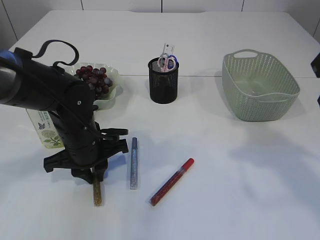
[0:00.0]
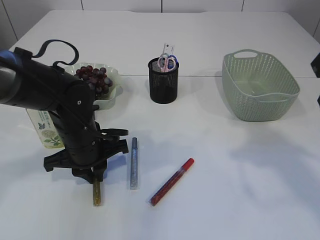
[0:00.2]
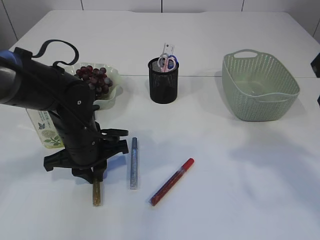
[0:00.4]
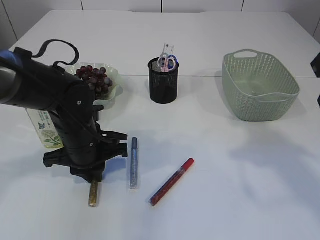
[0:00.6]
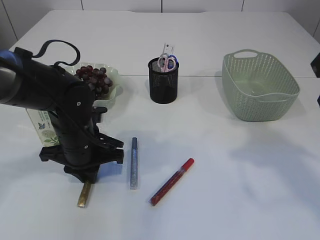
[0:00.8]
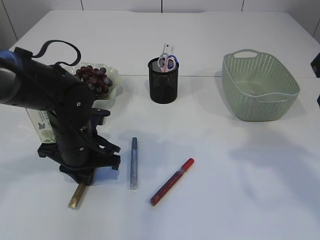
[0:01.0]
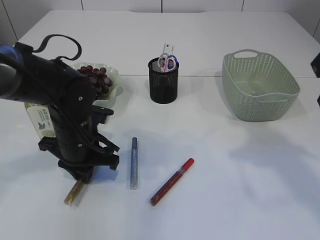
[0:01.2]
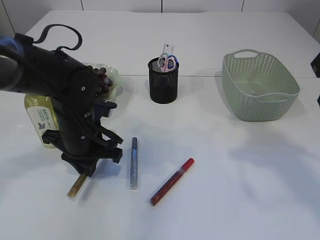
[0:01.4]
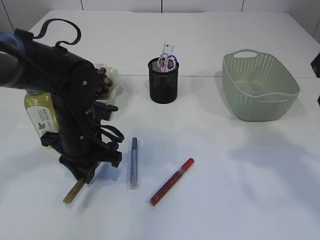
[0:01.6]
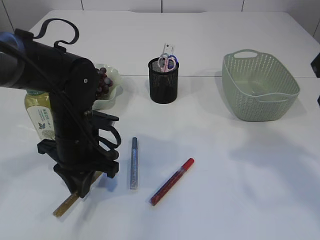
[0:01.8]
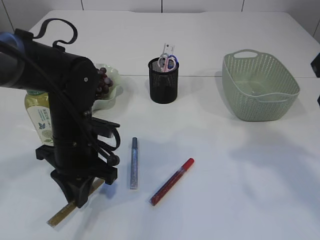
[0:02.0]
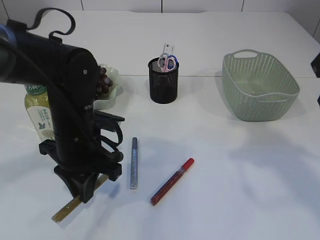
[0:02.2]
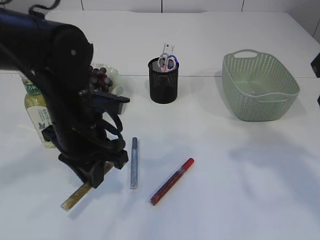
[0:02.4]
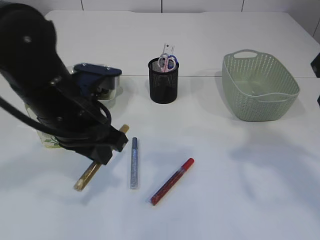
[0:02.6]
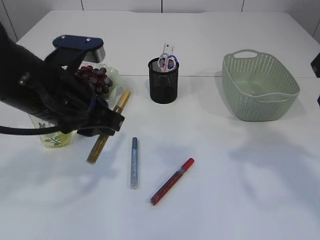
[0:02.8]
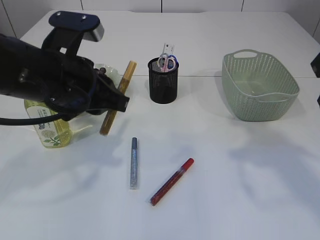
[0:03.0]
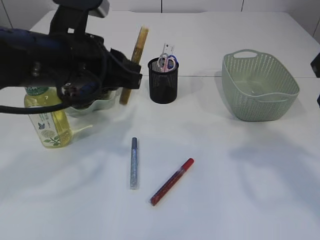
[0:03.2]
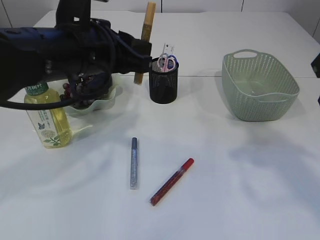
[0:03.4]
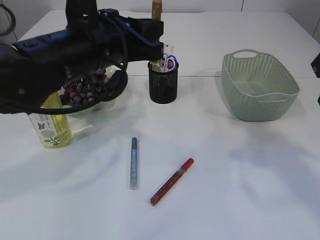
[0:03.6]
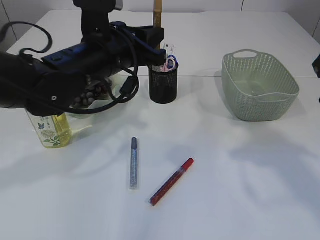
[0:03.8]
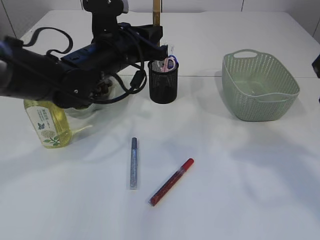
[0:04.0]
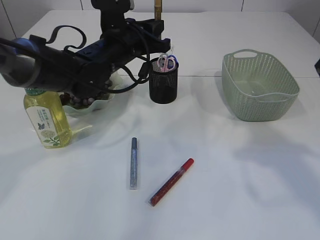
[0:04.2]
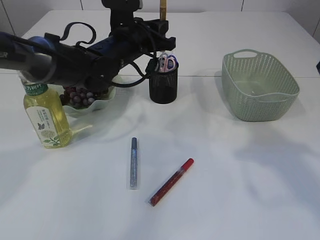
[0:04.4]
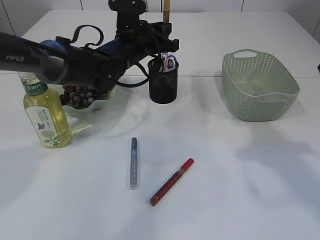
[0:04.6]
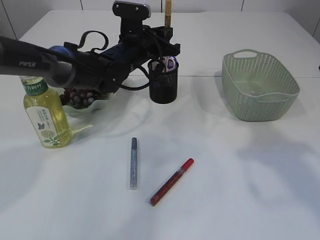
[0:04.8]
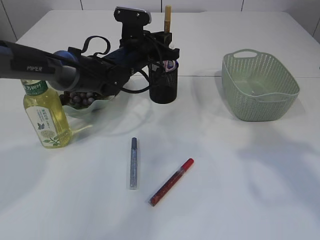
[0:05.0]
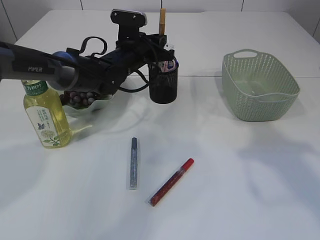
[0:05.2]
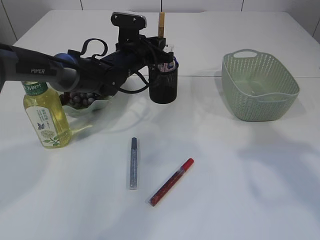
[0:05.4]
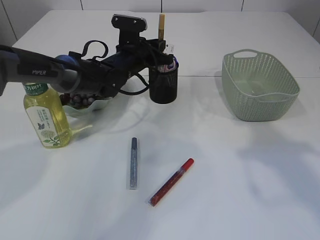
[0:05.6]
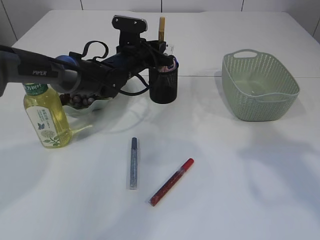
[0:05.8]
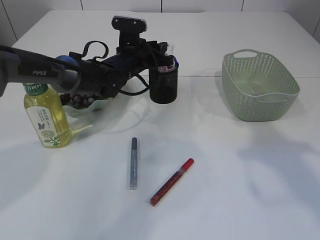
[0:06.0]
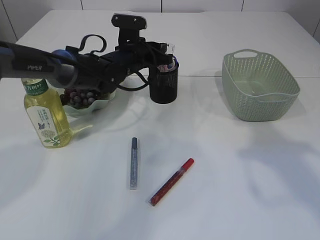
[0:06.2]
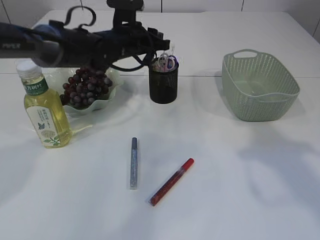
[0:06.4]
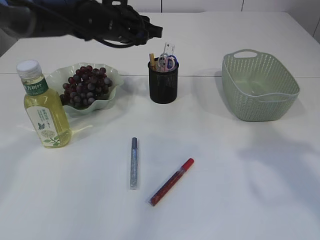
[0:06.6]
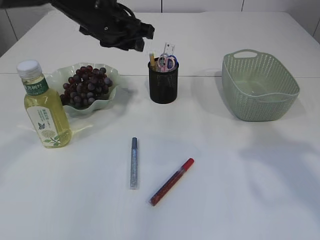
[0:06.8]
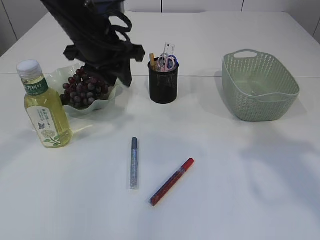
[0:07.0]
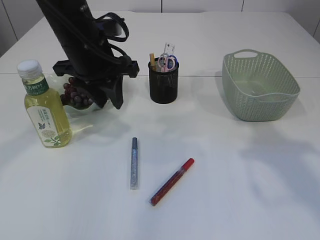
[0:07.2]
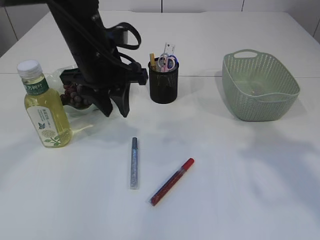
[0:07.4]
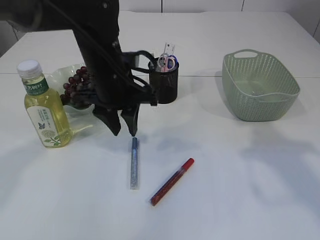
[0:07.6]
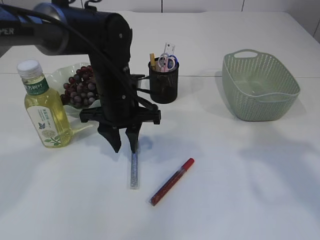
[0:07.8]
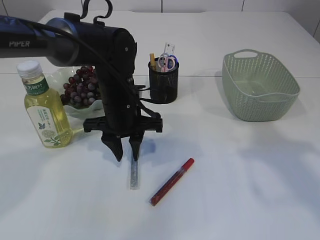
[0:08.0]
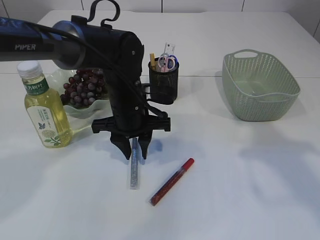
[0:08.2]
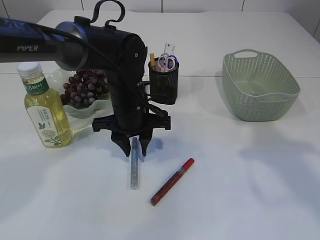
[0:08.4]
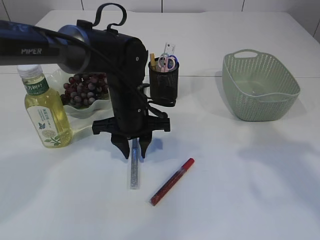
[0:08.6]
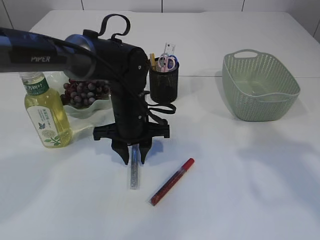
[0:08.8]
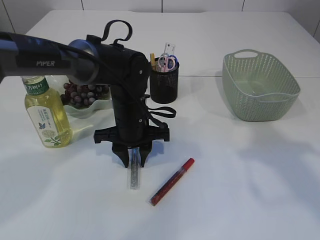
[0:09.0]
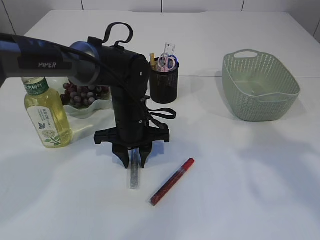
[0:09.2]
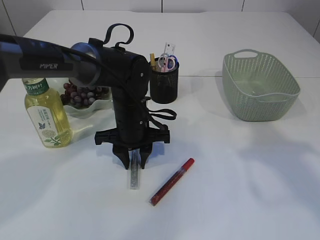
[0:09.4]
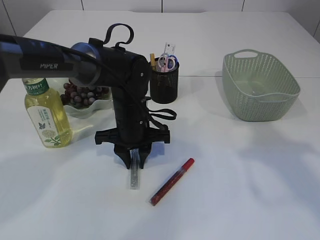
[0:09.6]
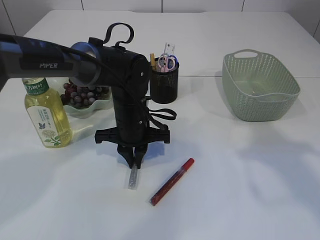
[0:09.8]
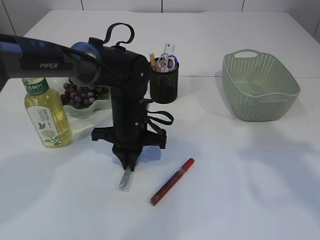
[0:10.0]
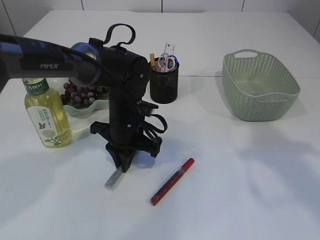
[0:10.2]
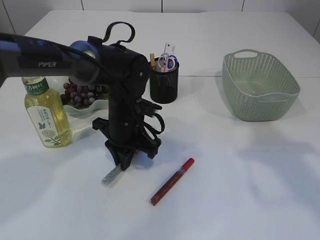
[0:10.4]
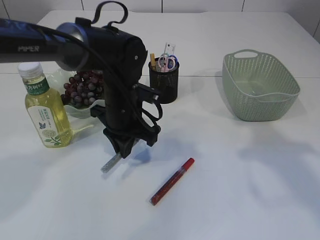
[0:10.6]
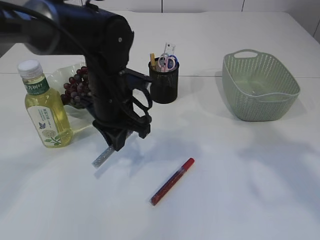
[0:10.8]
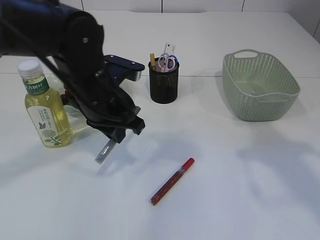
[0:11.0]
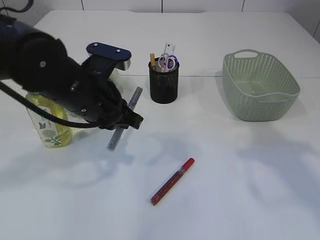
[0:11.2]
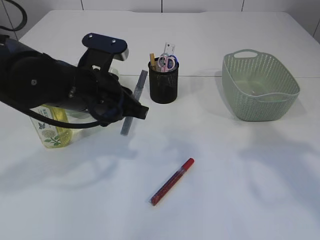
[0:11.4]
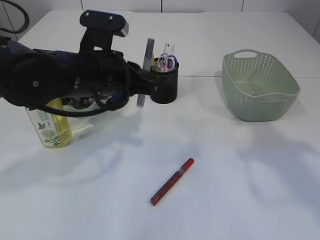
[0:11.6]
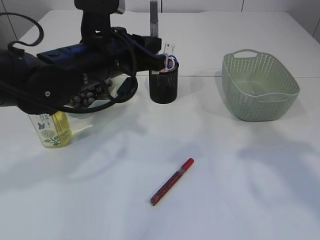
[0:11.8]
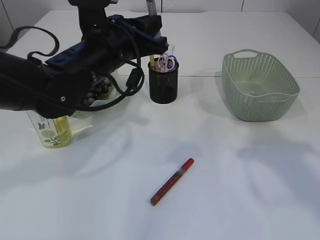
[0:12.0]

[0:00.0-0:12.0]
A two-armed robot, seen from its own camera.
Step, 0:00.0 to 0:02.6: pick up the yellow glue.
Step, 0:02.8 to 0:06.8: place the yellow glue into the pen holder.
Step, 0:07.0 to 0:11.0: pick up the silver glue.
0:01.6 to 0:03.0: The left gripper moves upward and backward, about 15 cm.
0:03.0 to 0:04.4: The left gripper travels forward by roughly 20 cm.
0:04.4 to 0:06.0: The left gripper moves downward, roughly 5 cm.
0:06.0 to 0:07.6: The left gripper travels backward and upward by roughly 15 cm.
0:07.6 to 0:09.0: The left gripper shifts some 10 cm downward.
0:09.0 to 0:10.4: The left gripper closes up.
0:10.4 to 0:12.0: The left gripper heads upward, covering approximately 15 cm.

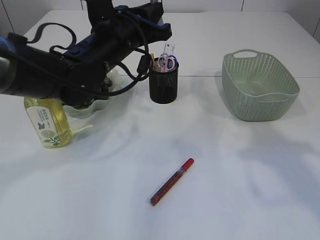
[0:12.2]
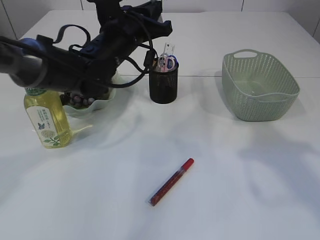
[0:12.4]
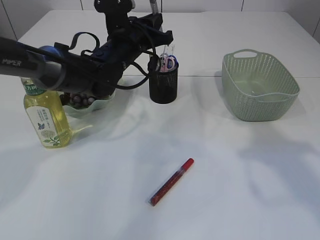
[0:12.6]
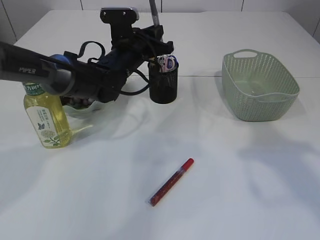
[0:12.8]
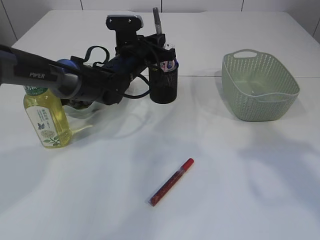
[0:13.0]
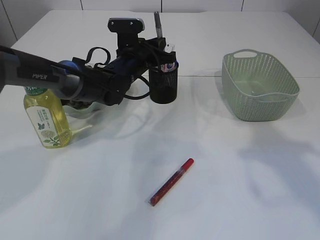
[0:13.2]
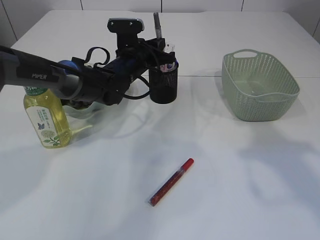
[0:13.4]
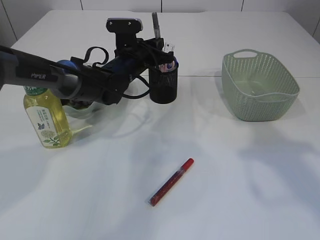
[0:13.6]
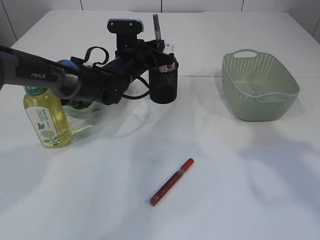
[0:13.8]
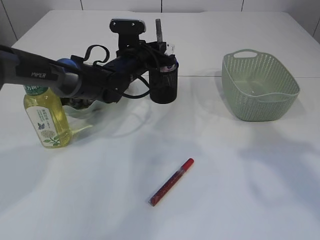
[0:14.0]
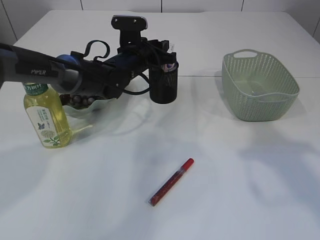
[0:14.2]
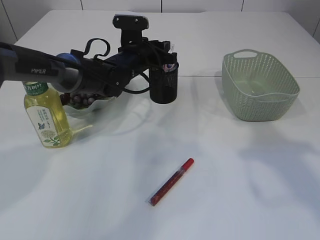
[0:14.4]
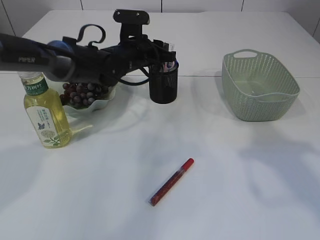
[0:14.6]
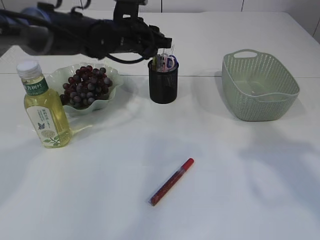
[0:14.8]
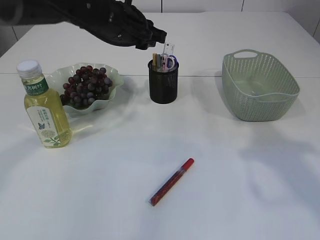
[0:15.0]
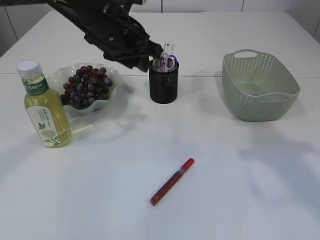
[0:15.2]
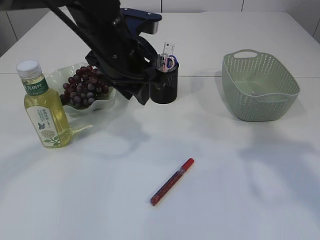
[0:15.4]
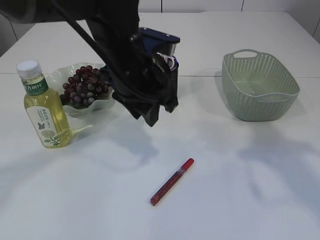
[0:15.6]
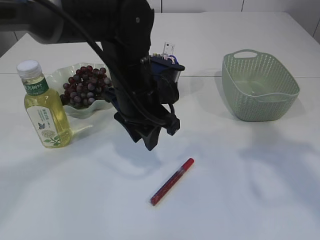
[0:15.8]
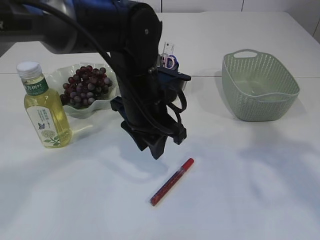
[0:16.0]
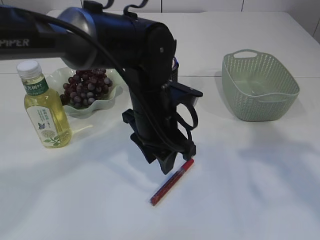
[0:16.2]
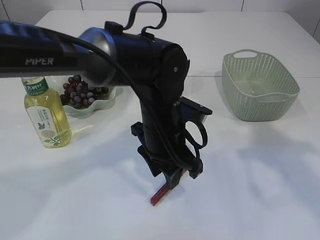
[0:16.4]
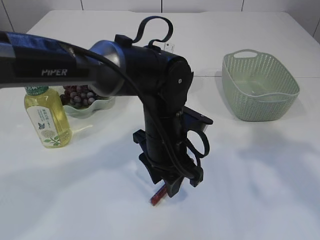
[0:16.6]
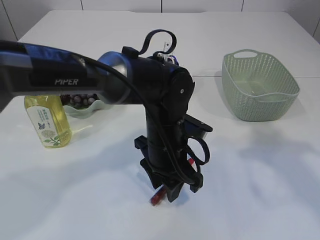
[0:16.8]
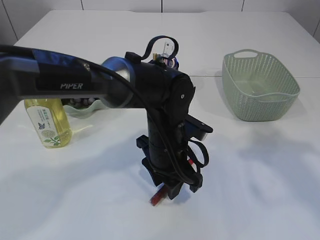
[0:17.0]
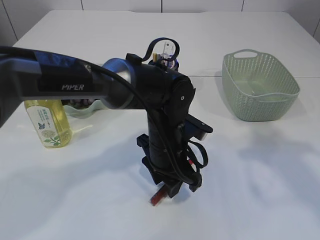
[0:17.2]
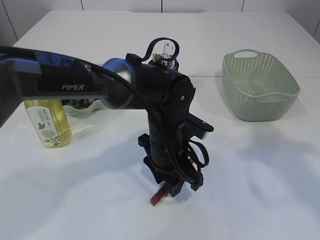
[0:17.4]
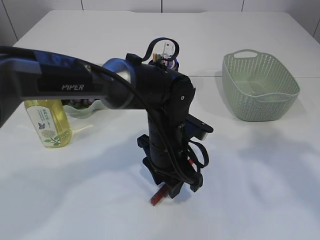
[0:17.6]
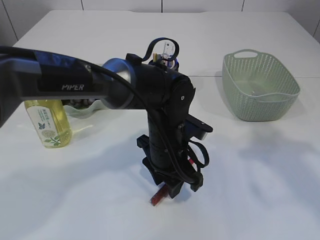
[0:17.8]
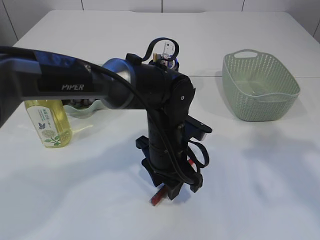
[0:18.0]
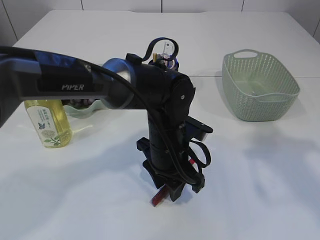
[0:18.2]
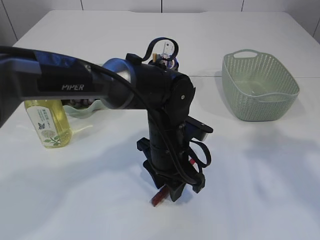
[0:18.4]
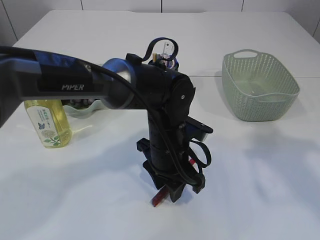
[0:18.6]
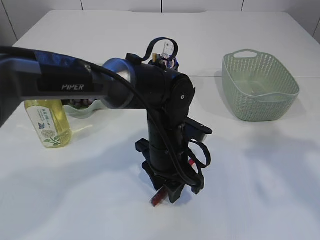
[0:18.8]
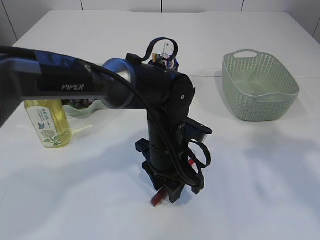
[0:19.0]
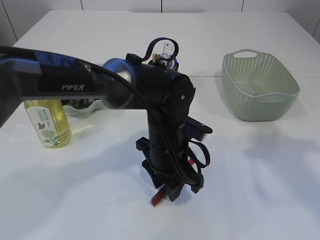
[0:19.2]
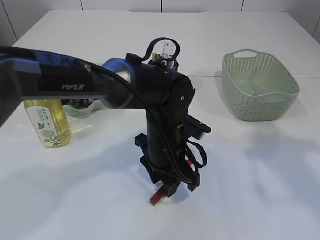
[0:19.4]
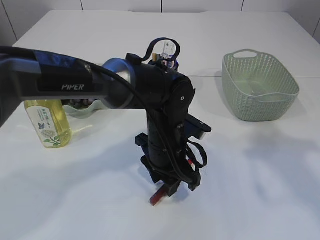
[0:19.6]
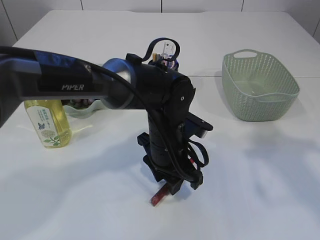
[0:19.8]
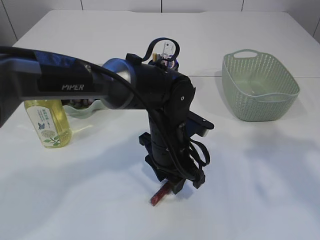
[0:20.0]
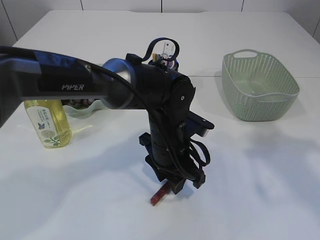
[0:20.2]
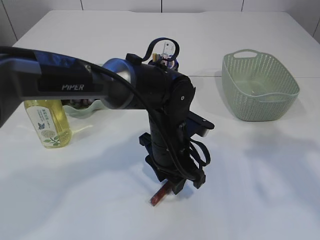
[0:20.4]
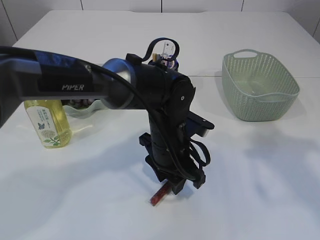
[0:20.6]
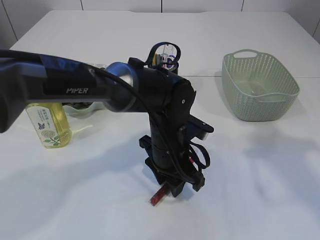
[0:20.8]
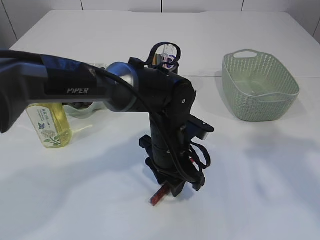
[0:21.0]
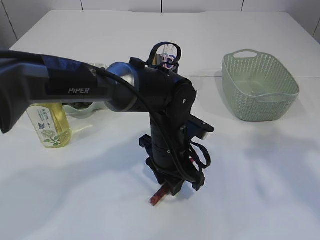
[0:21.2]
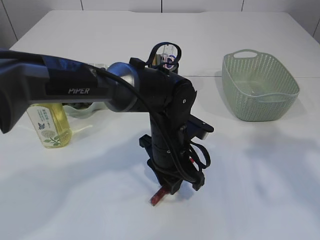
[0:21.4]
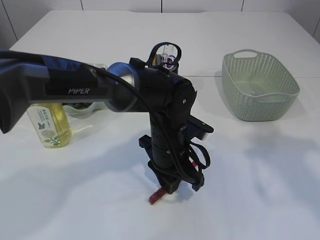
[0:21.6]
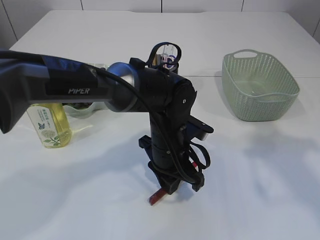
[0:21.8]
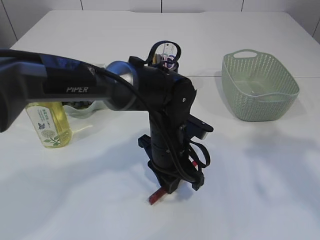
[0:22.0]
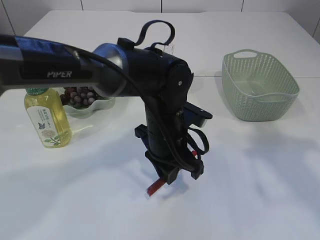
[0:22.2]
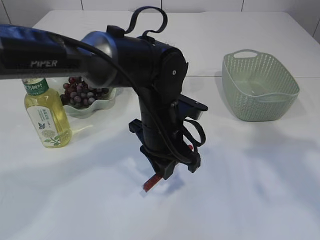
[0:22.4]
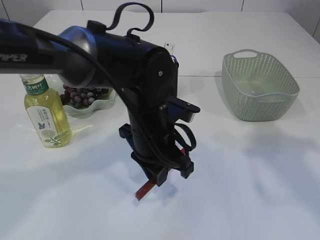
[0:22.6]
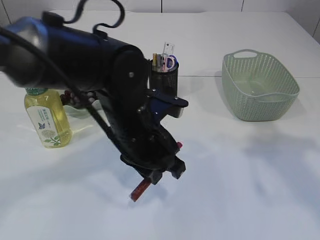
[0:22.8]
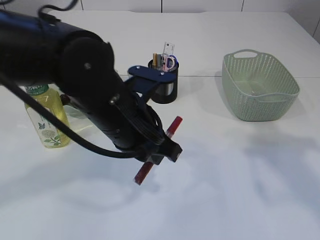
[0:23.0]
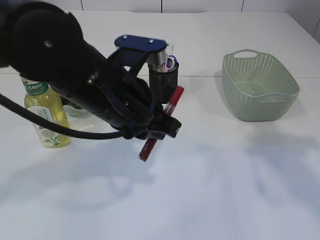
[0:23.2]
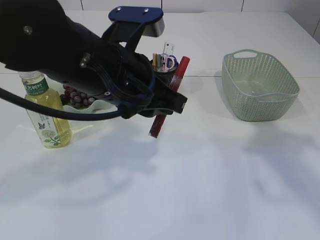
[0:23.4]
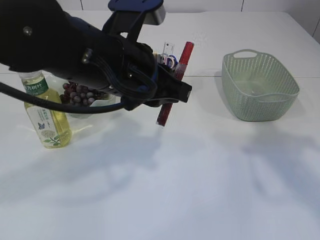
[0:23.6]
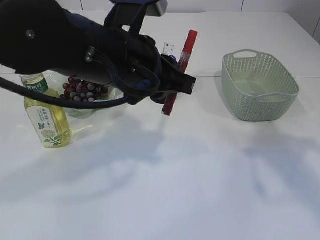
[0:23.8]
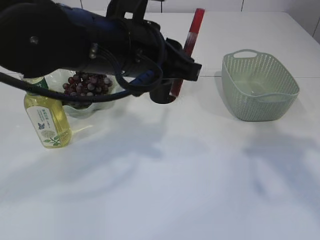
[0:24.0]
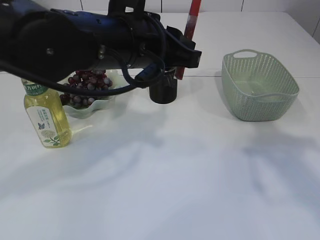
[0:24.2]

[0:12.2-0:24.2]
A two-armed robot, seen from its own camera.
Step, 0:12.2 to 0:14.6: place the silver glue into the pen holder.
Step, 0:14.8 to 0:22.6: pick up the red glue.
0:12.2 to 0:13.8: The left gripper shifts about 15 cm forward and downward.
0:13.8 to 0:15.2: The left gripper moves upward and backward, roughly 15 cm, and opens.
0:15.2 to 0:16.6: The left gripper heads downward, backward and to the right, covering about 20 cm.
0:16.6 to 0:18.2: The grippers make only small movements.
0:18.2 to 0:21.2: Both grippers stay about where they are.
0:21.2 to 0:22.6: The left gripper goes approximately 5 cm upward.
0:22.6 to 0:24.2: The left gripper travels upward by roughly 10 cm.
